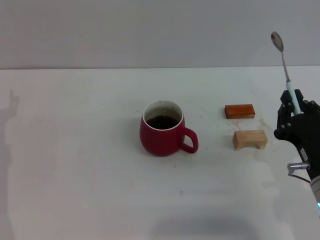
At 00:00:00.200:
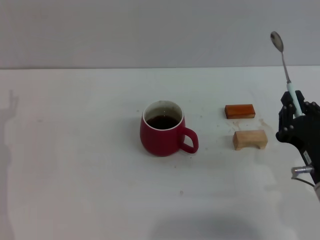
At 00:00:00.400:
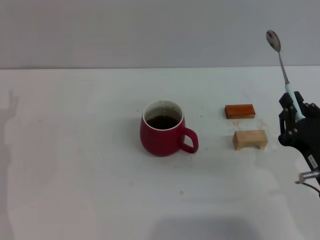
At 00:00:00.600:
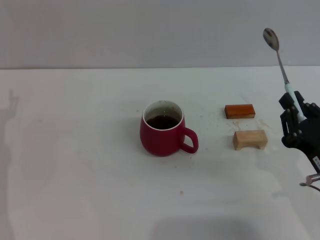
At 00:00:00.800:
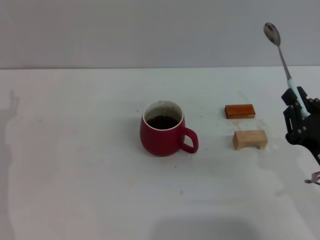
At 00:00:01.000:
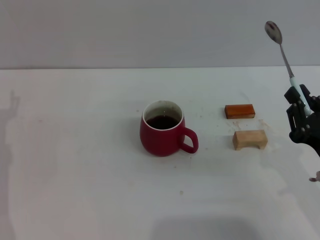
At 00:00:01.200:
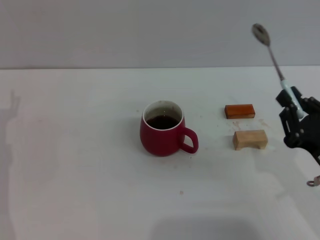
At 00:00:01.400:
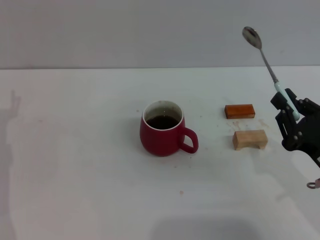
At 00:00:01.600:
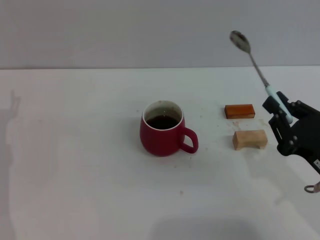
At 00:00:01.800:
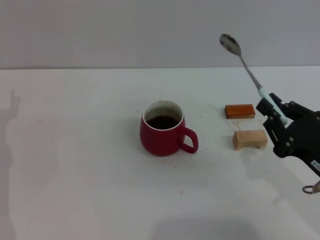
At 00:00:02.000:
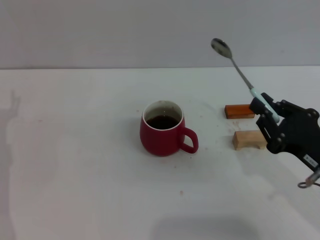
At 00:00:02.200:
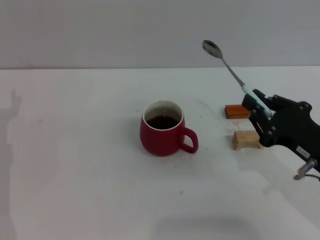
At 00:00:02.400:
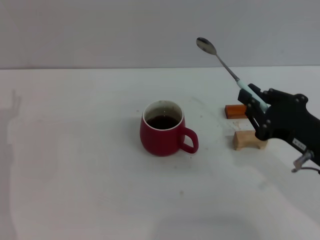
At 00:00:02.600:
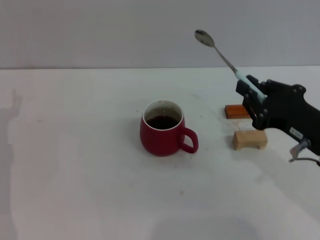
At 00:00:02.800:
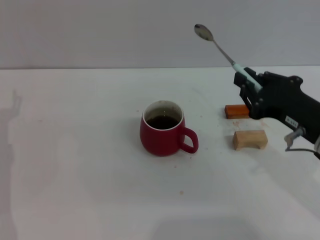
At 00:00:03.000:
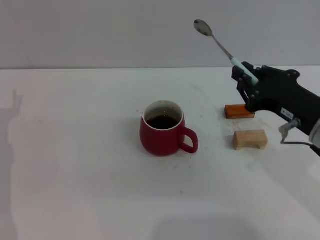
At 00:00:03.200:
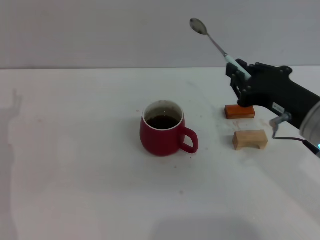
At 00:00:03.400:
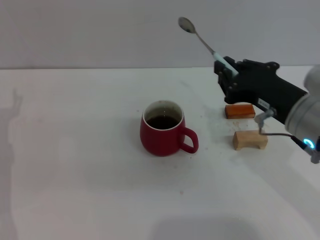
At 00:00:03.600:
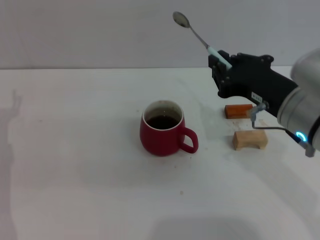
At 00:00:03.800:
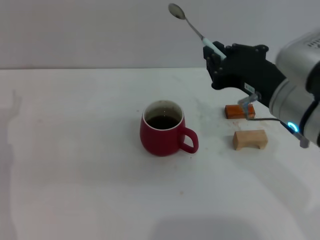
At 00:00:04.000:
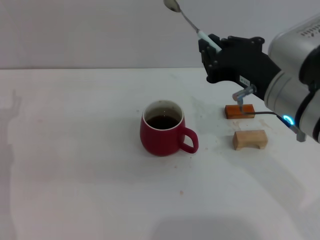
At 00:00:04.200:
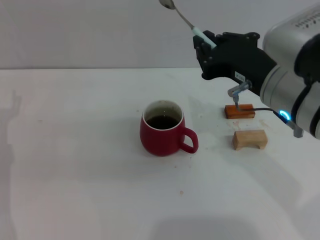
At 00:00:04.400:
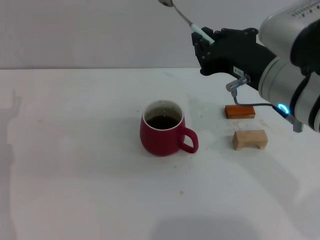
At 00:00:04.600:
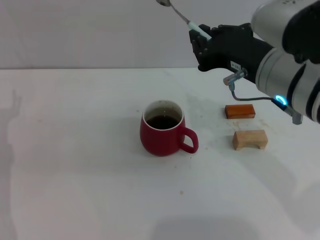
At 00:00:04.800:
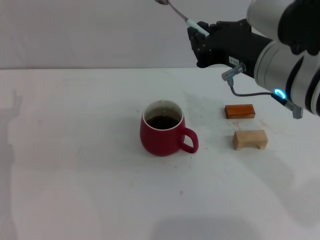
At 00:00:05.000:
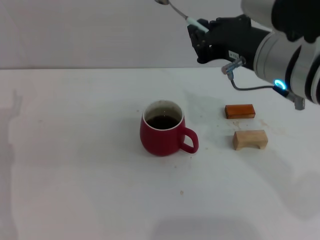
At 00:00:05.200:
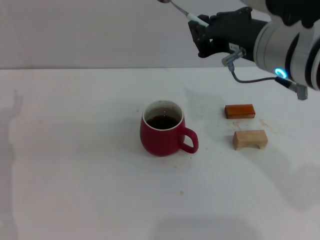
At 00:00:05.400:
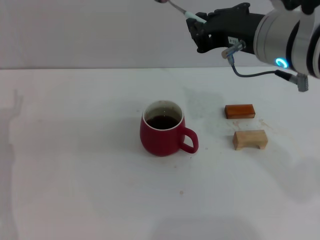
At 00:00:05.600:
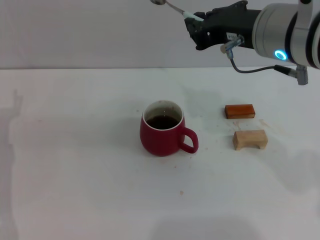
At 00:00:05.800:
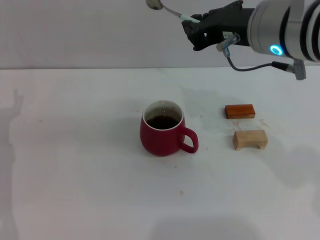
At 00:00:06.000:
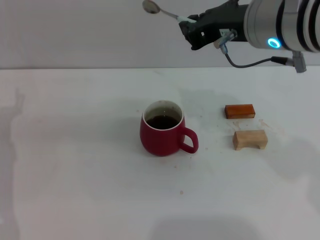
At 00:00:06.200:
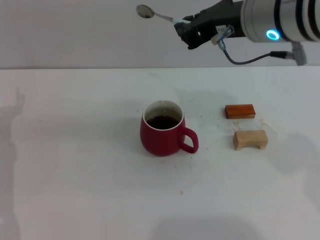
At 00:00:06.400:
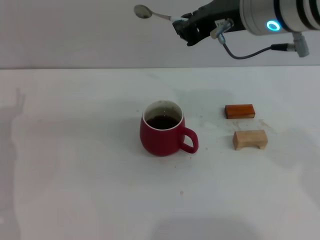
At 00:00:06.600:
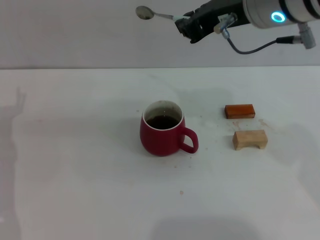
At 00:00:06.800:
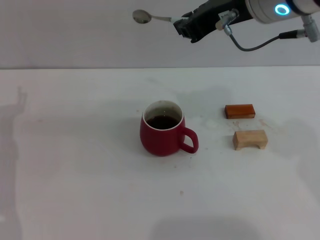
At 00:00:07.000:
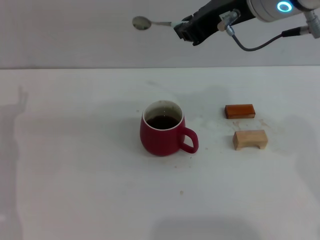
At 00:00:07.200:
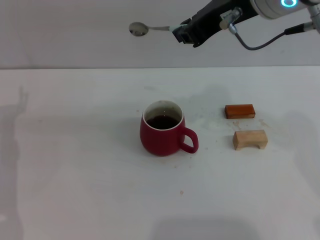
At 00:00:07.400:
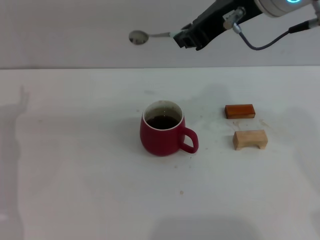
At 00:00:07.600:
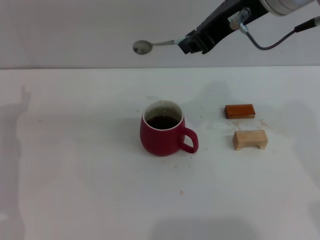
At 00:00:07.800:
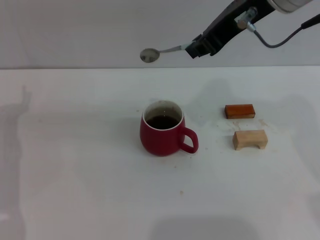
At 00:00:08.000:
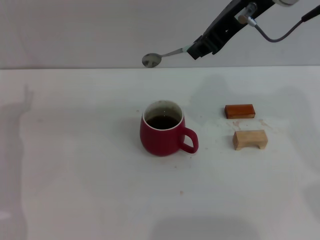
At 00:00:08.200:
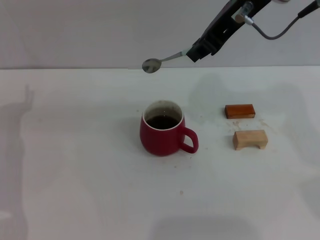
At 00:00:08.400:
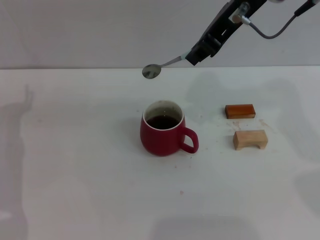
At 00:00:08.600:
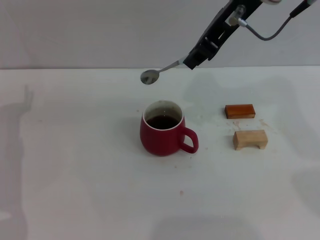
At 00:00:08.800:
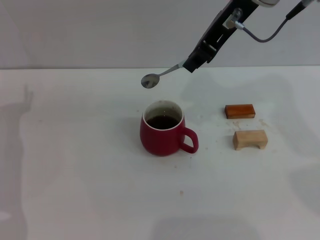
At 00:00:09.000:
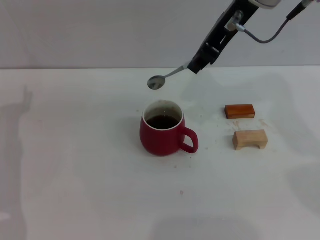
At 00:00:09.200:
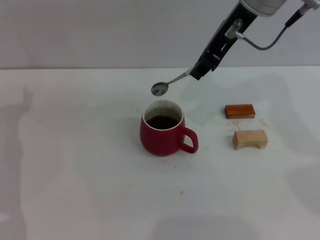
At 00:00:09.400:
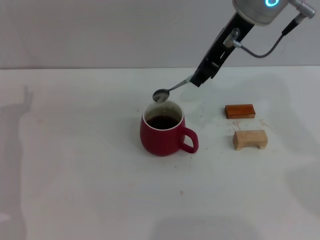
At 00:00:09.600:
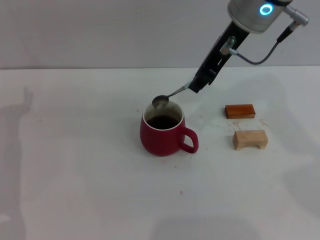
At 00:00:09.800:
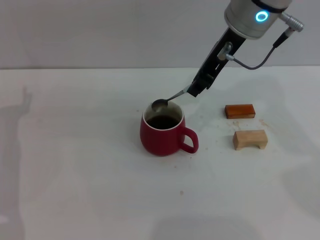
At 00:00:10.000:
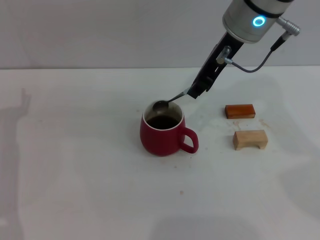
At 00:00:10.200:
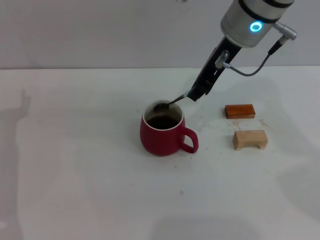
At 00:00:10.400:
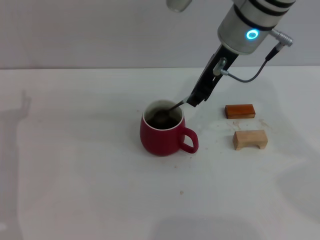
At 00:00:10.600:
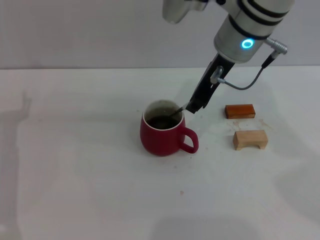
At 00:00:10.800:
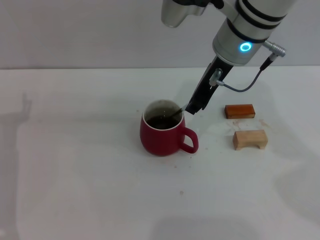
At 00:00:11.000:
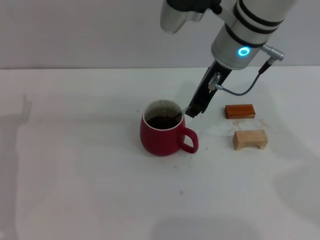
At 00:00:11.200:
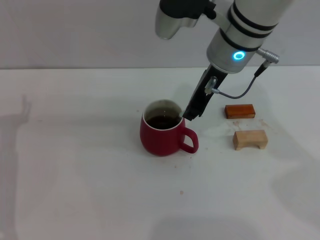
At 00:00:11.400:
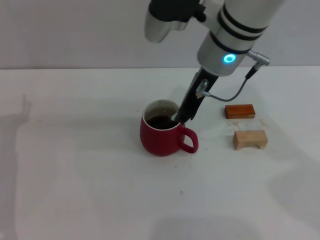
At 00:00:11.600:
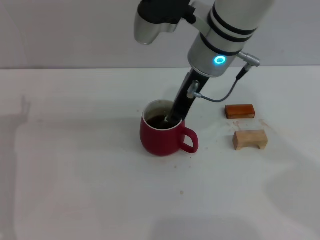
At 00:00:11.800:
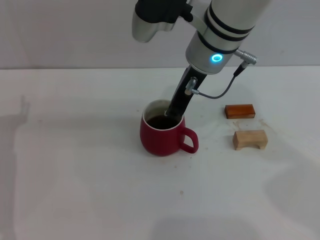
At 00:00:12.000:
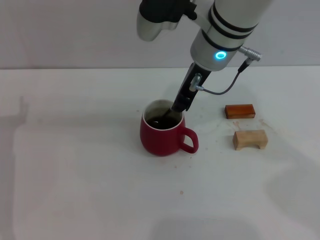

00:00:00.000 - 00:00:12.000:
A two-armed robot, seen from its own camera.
Task of the whole recording: Move the red cup to the center, lift the blue spoon, stir it three times in the cup, and put the spoon into the cup.
00:00:01.600 - 00:00:03.000: The right gripper travels upward and forward by about 10 cm.
00:00:03.000 - 00:00:04.400: The right gripper travels to the left and upward by some 10 cm.
00:00:04.400 - 00:00:06.000: The right gripper travels upward by roughly 5 cm.
00:00:06.000 - 00:00:07.600: The right gripper goes some 5 cm upward.
00:00:07.600 - 00:00:09.000: The right gripper travels forward by some 5 cm.
00:00:09.000 - 00:00:10.400: The right gripper goes approximately 5 cm downward.
00:00:10.400 - 00:00:12.000: The grippers stay close to where they were, moving slightly.

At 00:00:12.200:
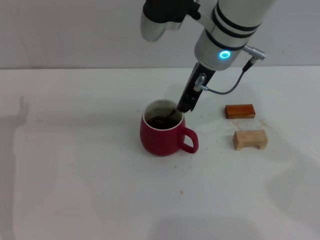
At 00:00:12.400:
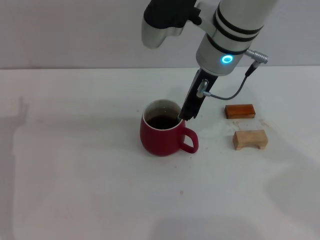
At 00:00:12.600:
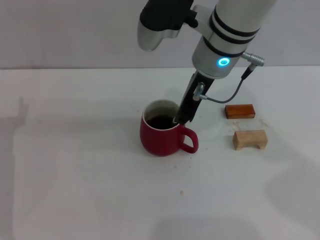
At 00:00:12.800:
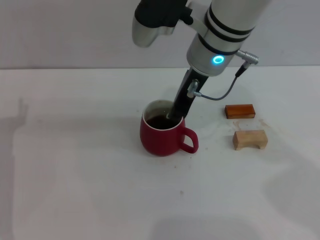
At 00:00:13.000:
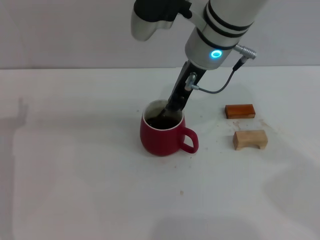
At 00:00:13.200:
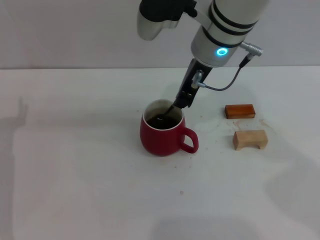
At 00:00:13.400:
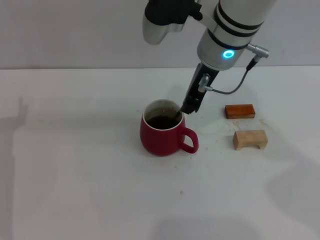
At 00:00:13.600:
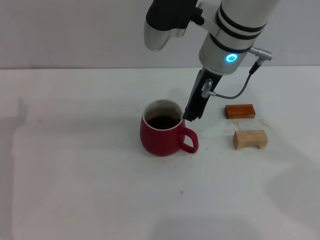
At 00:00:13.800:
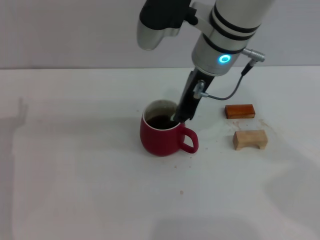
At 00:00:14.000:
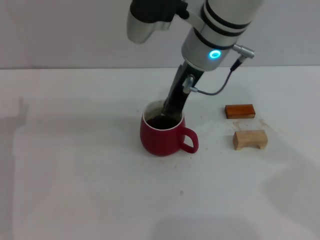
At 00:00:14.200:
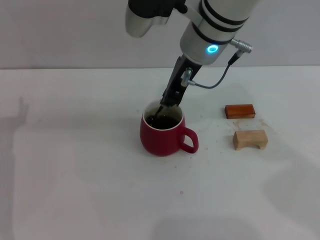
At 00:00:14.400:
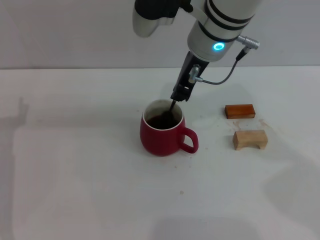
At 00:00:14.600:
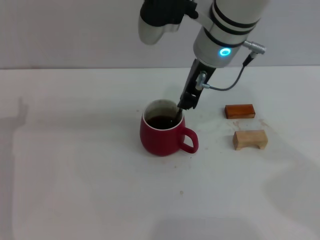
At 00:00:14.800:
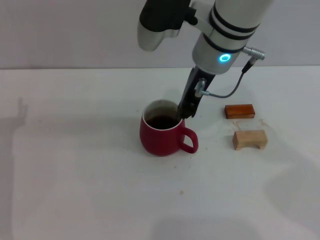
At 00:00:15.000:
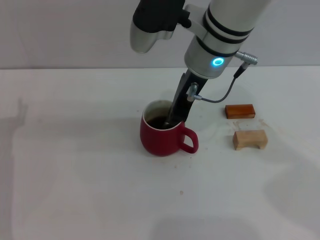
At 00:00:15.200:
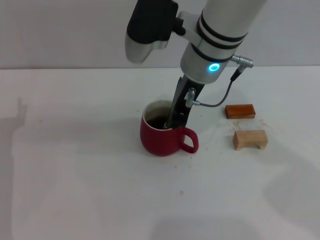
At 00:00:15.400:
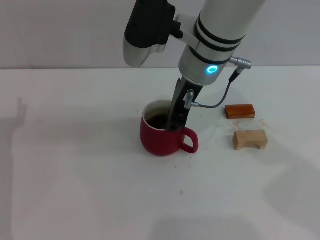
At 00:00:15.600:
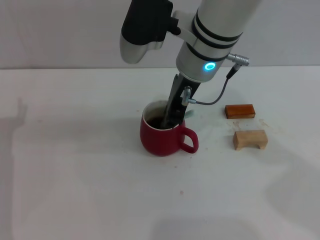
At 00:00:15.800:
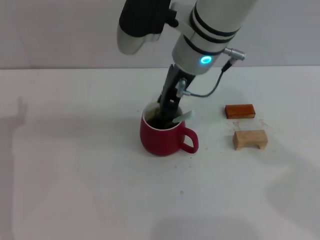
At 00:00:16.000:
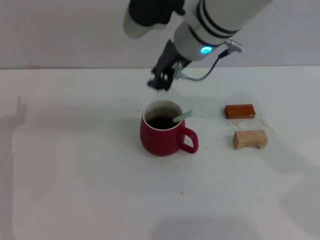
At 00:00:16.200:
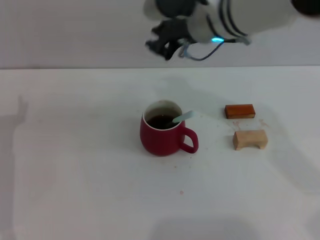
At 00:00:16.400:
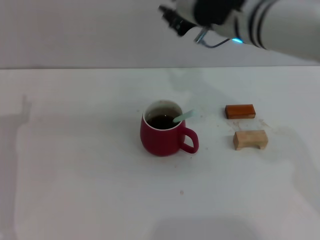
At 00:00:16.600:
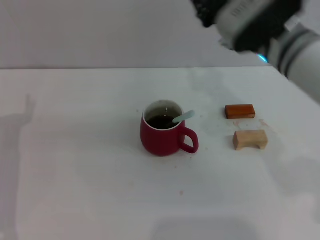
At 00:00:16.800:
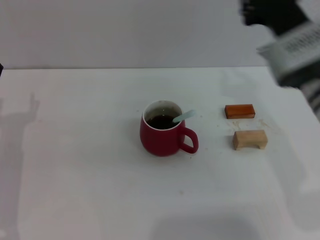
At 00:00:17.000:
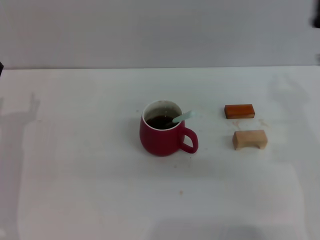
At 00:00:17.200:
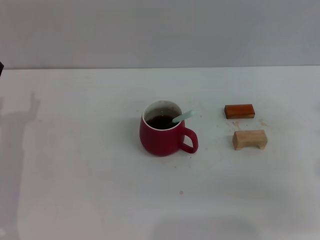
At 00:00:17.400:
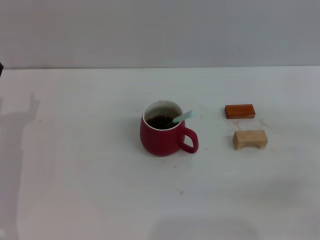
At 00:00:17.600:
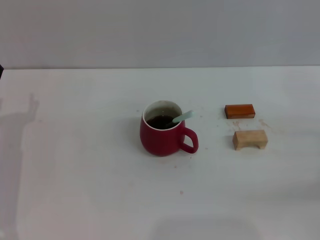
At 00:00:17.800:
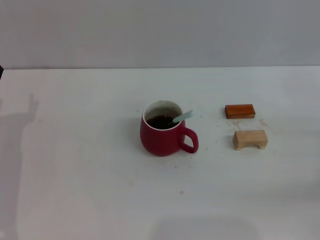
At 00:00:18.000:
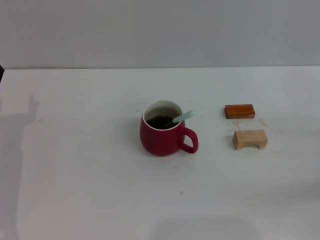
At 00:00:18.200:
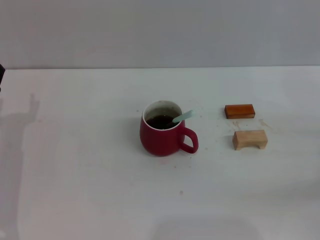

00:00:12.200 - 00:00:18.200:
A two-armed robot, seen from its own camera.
Task of the whole recording: Move the red cup to the center, lift the blue spoon, stir it three times in the cup, and put the spoon into the cup.
Step, 00:00:12.200 - 00:00:15.800: Stir the coffee in the cup with the right gripper.
00:00:12.200 - 00:00:15.200: The grippers move only a little.
00:00:15.200 - 00:00:16.600: The right gripper shifts some 10 cm to the right.
00:00:16.600 - 00:00:18.200: The right gripper travels to the right, downward and backward by some 30 cm.
